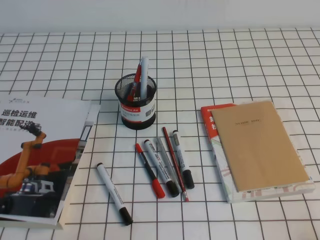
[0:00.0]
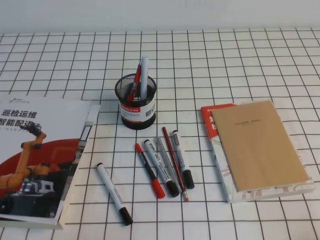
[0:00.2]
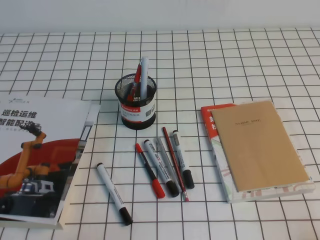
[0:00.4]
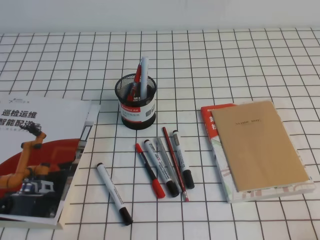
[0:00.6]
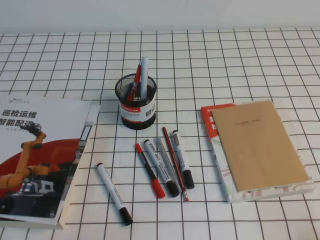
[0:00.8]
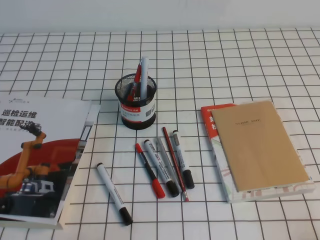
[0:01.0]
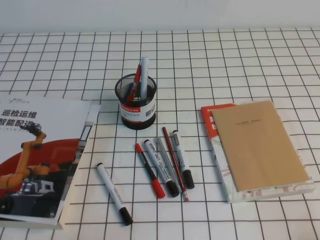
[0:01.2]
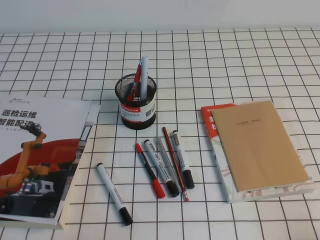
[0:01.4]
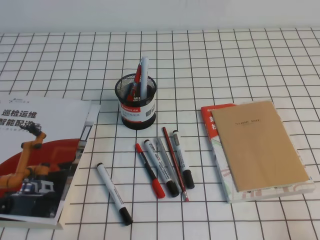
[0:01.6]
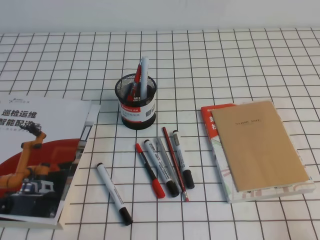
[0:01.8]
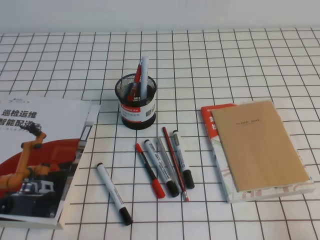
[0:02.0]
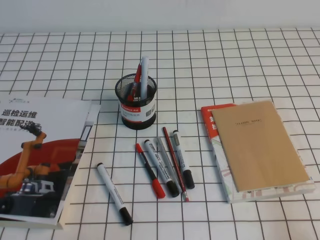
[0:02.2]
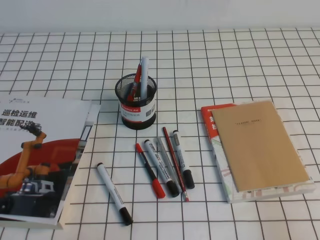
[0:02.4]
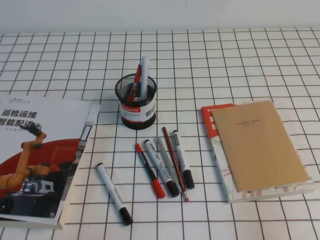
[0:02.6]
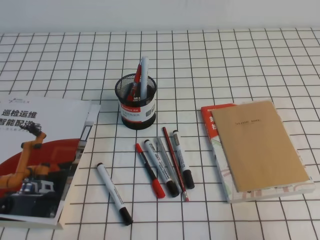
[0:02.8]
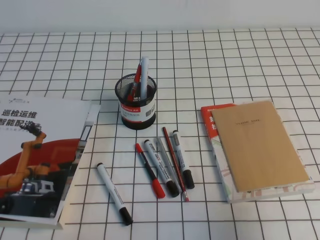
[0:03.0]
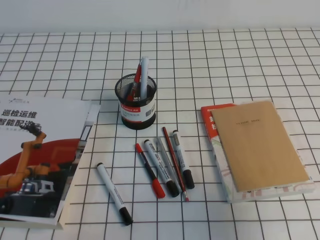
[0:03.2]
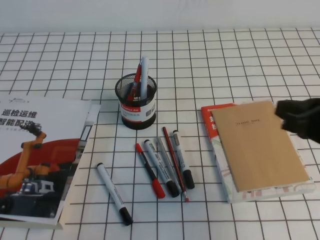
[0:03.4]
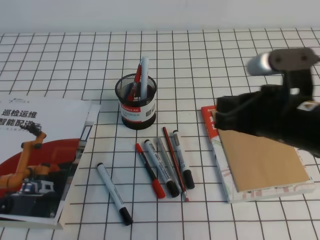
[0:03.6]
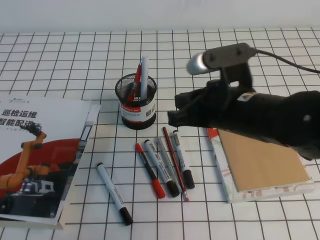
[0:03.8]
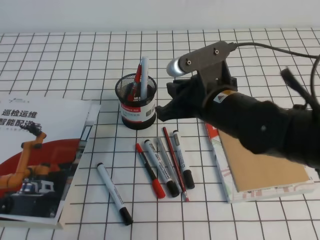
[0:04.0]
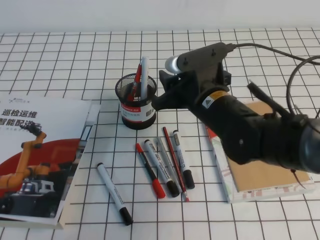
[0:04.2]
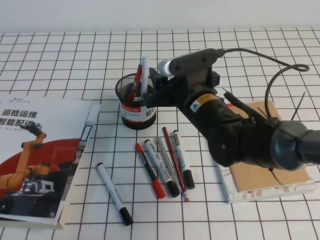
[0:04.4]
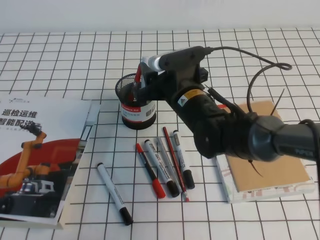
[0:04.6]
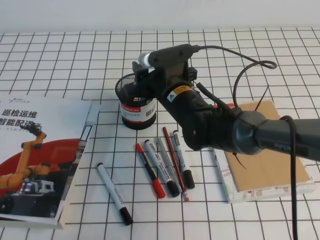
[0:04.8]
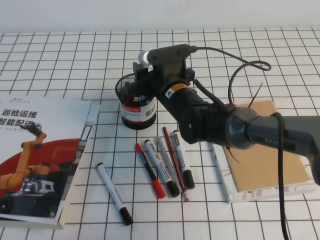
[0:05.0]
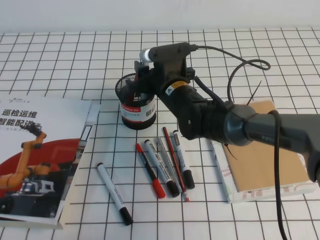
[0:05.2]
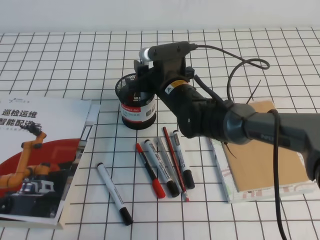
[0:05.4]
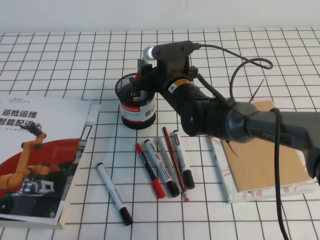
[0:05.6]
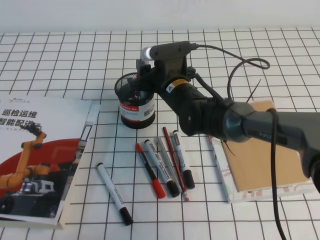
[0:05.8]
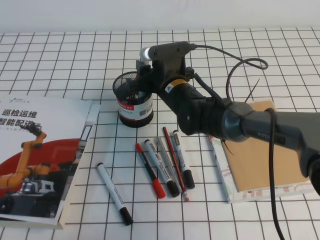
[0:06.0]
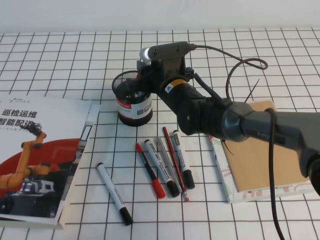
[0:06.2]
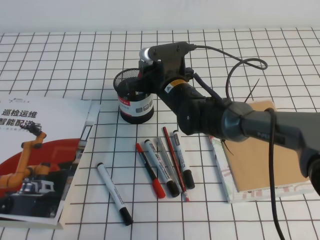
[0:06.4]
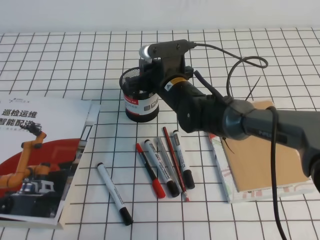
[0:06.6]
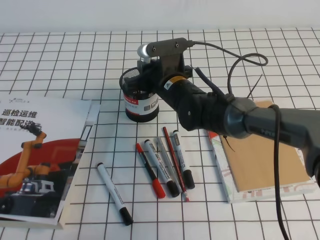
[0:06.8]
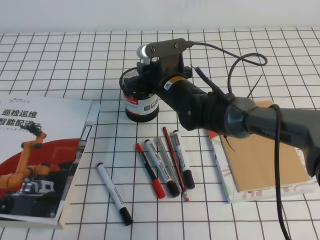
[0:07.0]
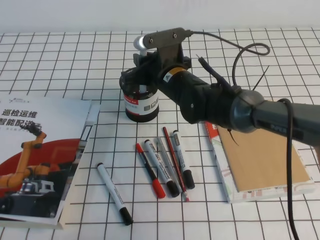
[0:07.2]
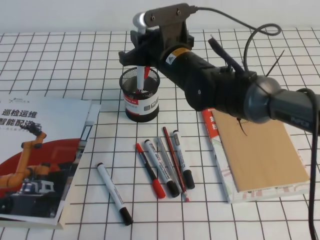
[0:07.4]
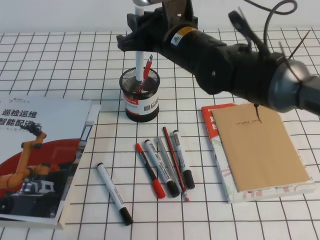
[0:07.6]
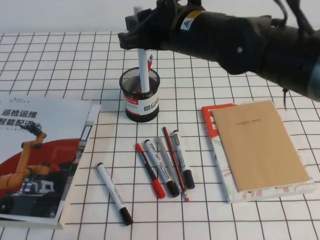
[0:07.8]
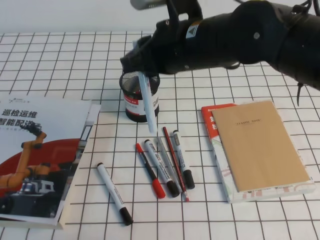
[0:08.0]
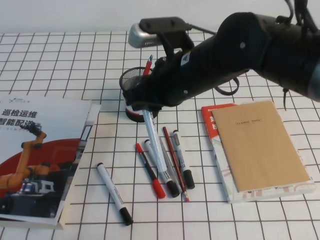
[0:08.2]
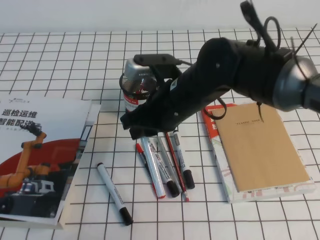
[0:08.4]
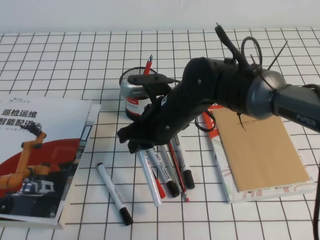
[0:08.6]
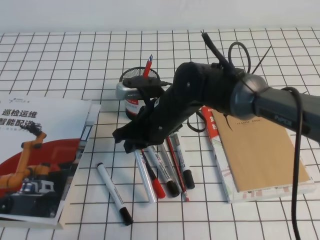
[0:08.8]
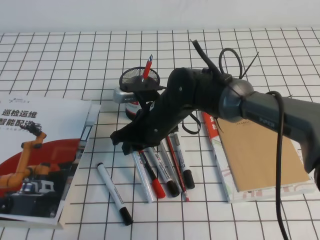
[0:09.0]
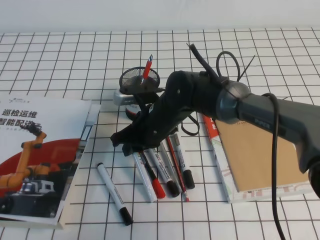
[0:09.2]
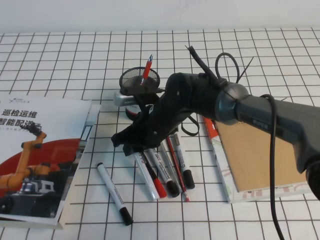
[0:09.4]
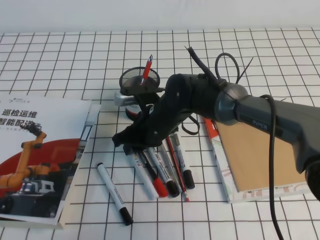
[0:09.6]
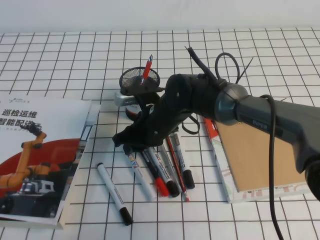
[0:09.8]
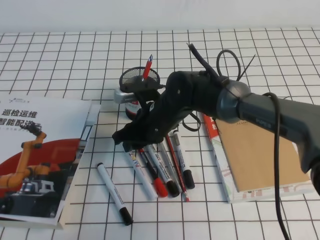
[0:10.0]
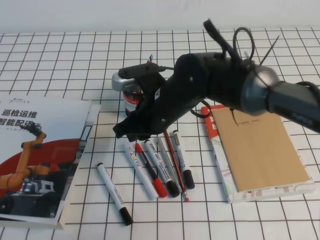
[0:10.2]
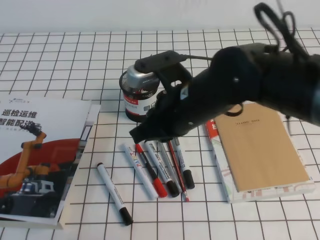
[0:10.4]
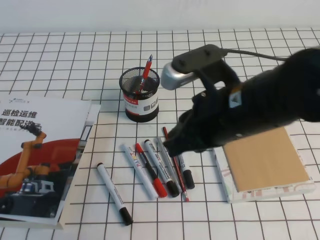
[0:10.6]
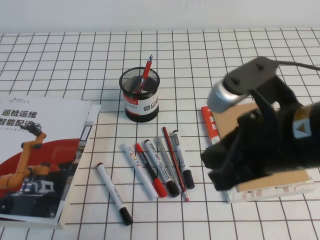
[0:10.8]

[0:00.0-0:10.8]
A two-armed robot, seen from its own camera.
0:01.6 to 0:03.0: The right gripper goes about 15 cm upward and forward.
0:03.0 to 0:04.6: The right gripper heads to the left and forward, covering about 35 cm, and opens up.
0:04.6 to 0:06.2: The right gripper is displaced forward by about 5 cm.
0:06.2 to 0:07.8: The right gripper travels upward and backward by some 15 cm, and closes.
0:07.8 to 0:09.2: The right gripper heads downward, covering about 15 cm.
0:09.2 to 0:10.8: The right gripper is displaced backward, upward and to the right by some 25 cm.

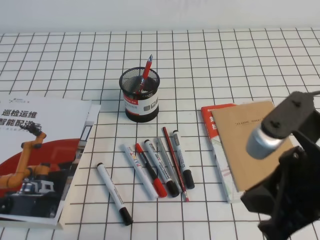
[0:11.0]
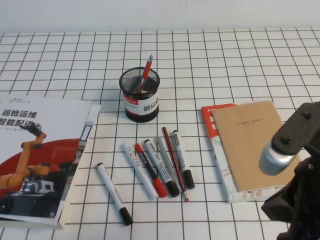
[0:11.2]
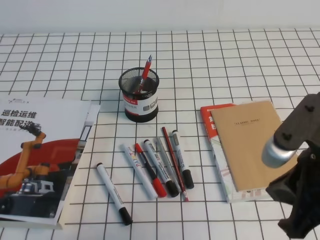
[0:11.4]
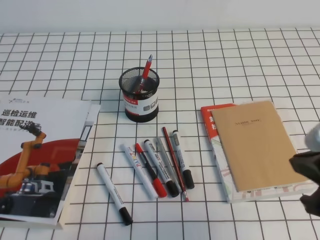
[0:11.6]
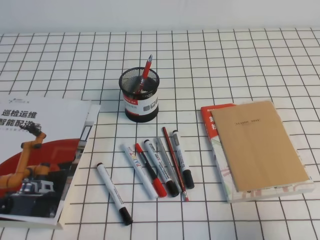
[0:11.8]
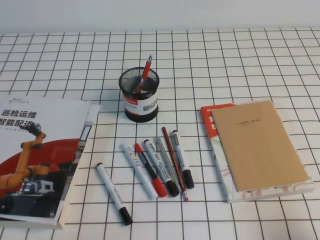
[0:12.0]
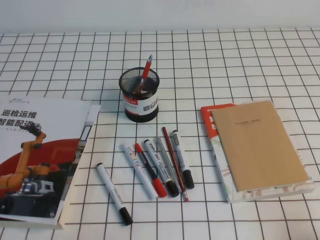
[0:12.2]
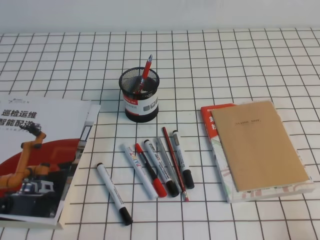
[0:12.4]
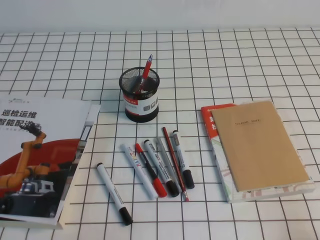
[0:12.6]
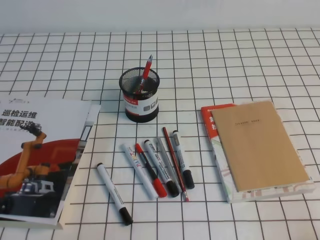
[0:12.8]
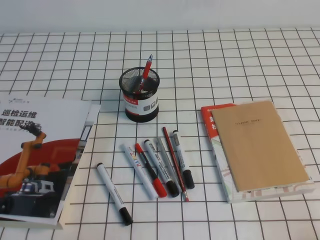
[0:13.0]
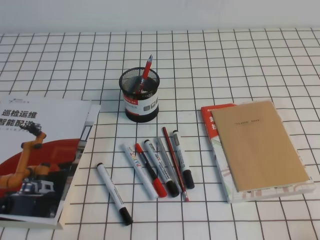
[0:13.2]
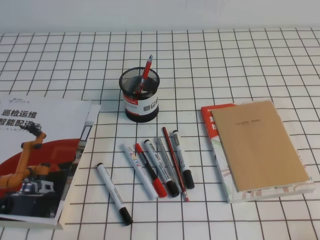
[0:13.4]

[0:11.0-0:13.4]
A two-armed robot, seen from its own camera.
Step, 0:11.0 to 0:13.4: Pick up the pen from the pen holder.
0:11.0 to 0:12.2: The right gripper is displaced to the right, downward and backward by roughly 20 cm.
